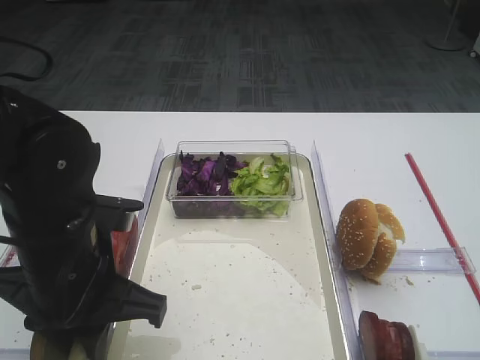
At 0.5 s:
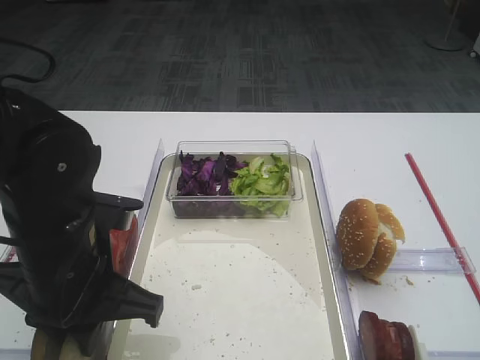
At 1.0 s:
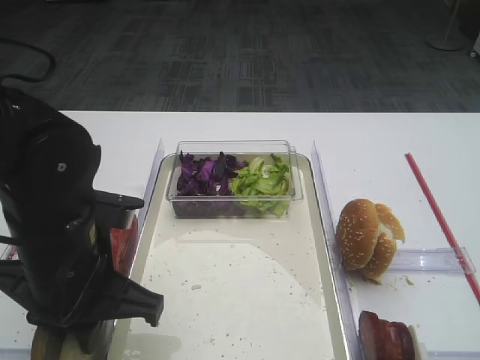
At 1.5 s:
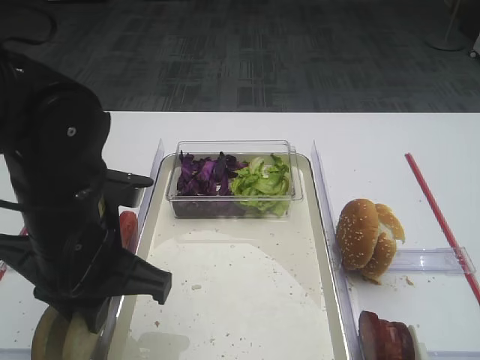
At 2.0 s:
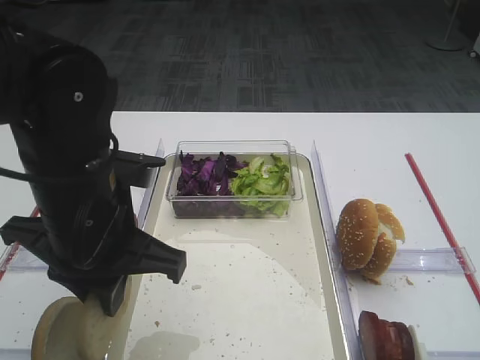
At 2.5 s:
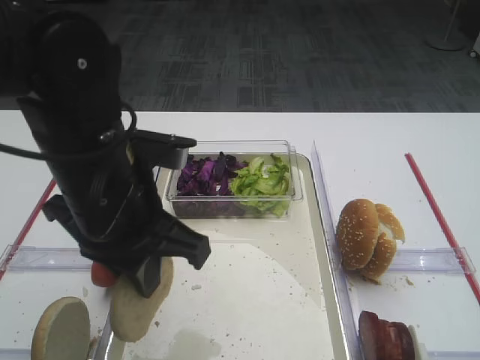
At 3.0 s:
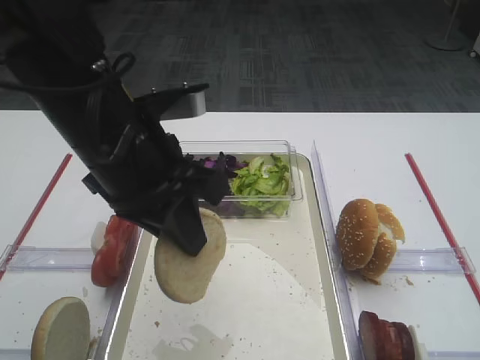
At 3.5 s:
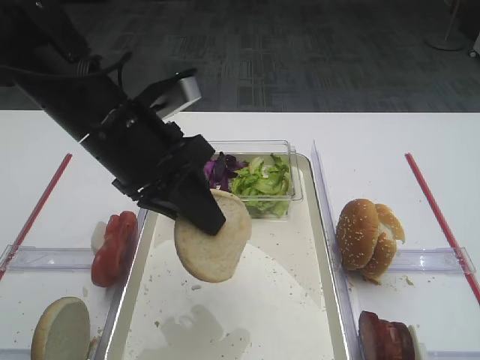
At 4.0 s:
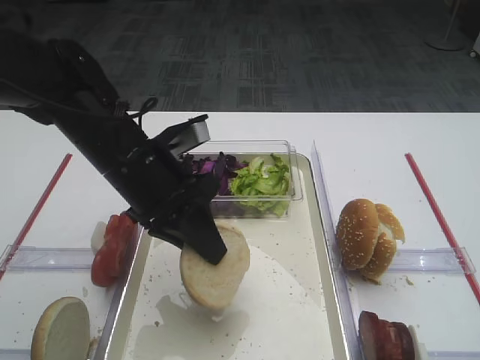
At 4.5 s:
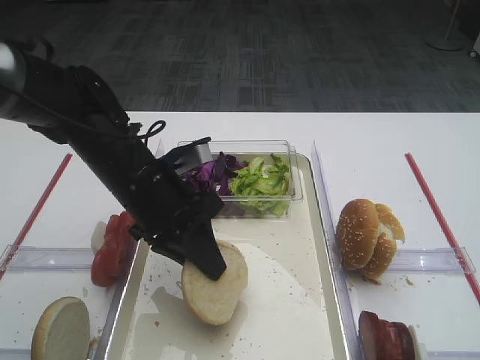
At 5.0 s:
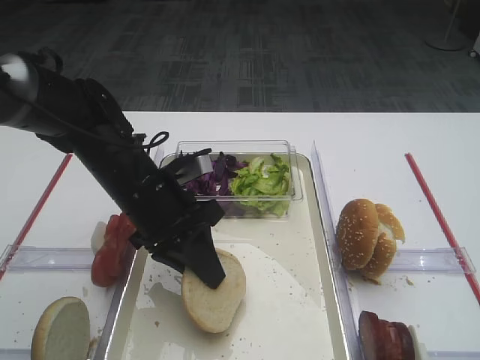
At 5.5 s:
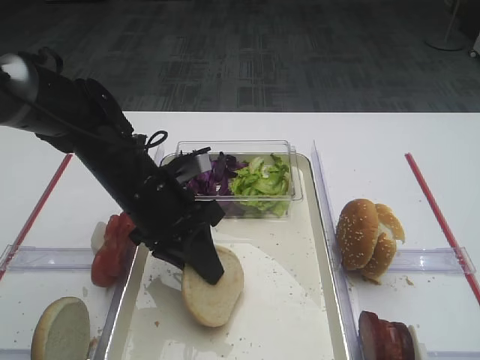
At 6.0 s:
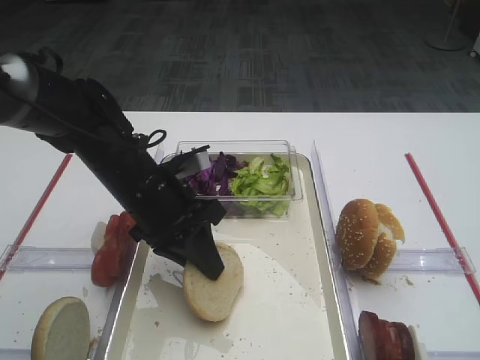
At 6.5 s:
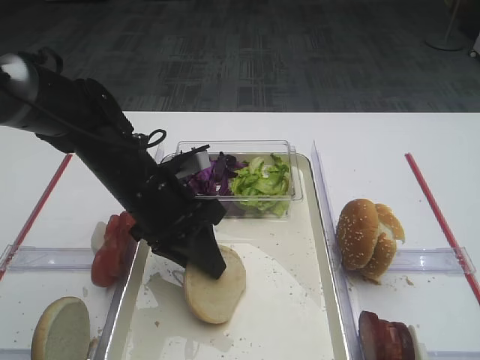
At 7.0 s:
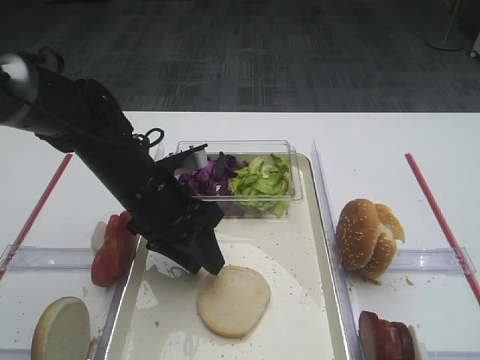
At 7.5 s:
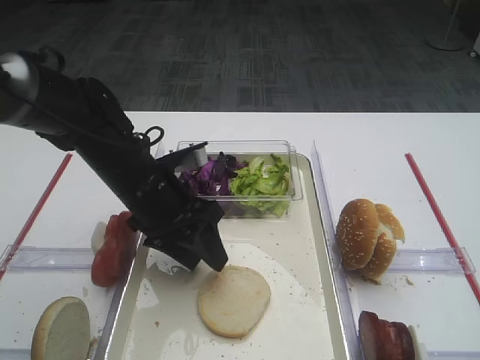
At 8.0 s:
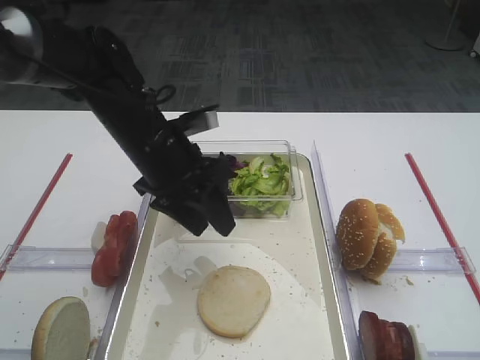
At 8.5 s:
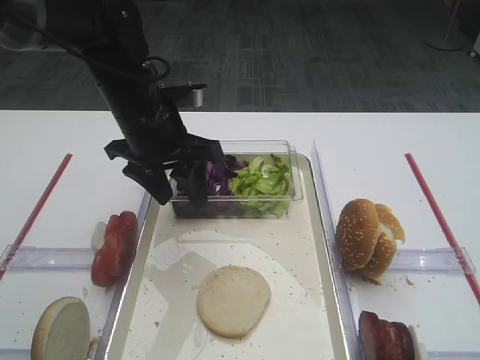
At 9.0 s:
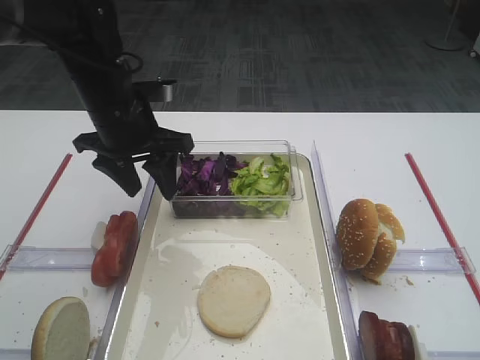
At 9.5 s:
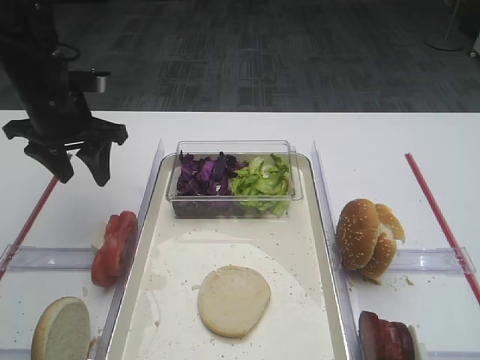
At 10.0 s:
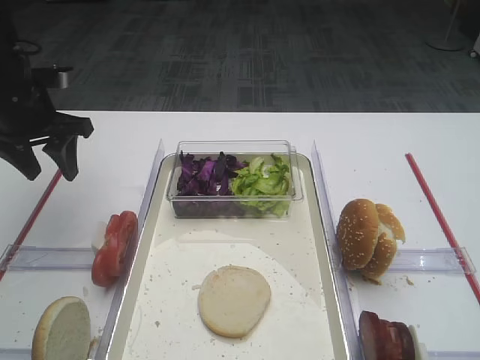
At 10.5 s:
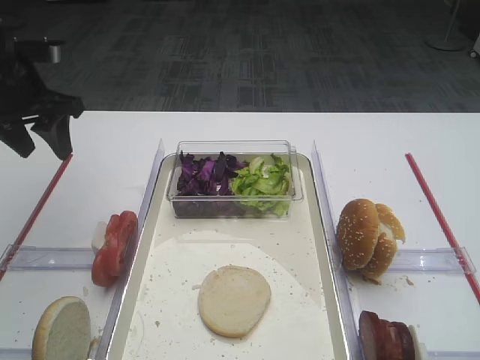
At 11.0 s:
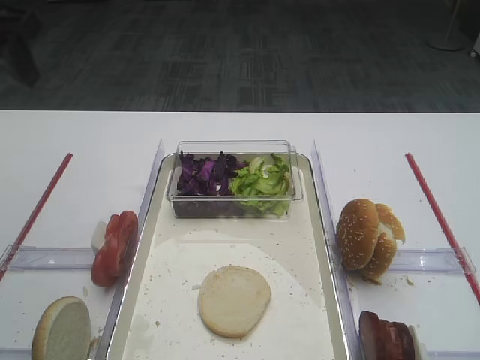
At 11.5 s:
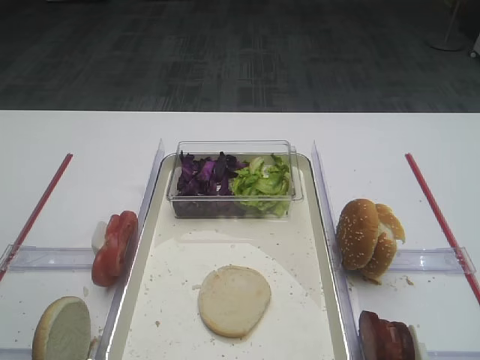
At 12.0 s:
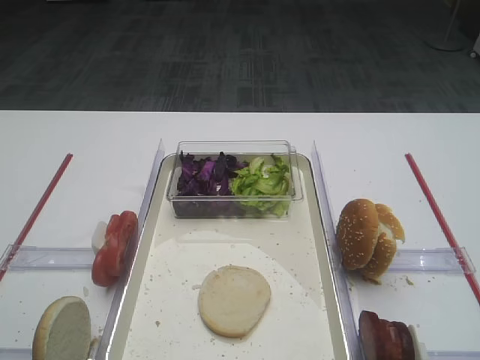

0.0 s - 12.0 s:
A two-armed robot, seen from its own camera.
Step, 0.0 s - 2.0 s: Pick up the bread slice with the left gripper.
Step, 2.5 s - 8.0 s: Place the bread slice on the tray with the left gripper.
0.0 s - 2.0 s: The grippers make only small movements.
2.0 s - 4.0 s: The left gripper heads forward, covering some 10 cm.
4.0 s - 6.0 s: The grippers move only a little.
6.0 s - 8.0 s: The left gripper ends up approximately 5 cm from where it was, and opens its fingers.
8.0 s - 10.0 s: The left gripper travels to the left by approximately 20 cm.
10.0 s - 12.0 s: The left gripper goes some 30 cm backward.

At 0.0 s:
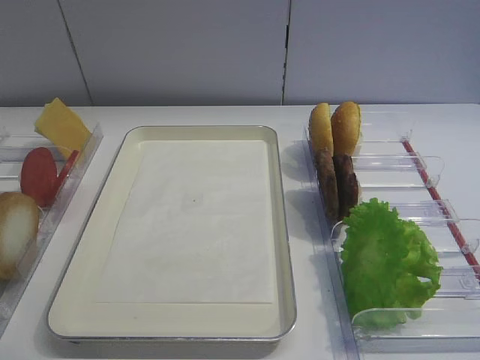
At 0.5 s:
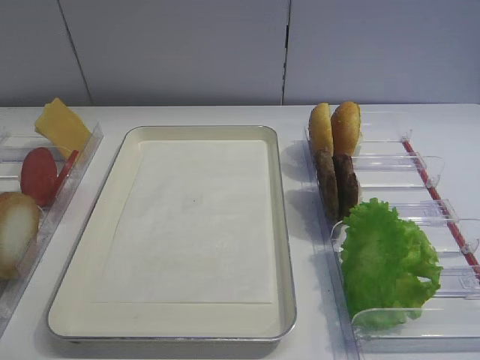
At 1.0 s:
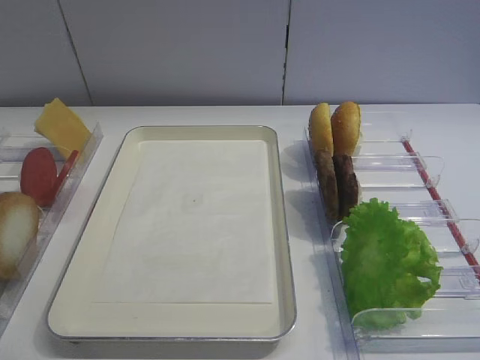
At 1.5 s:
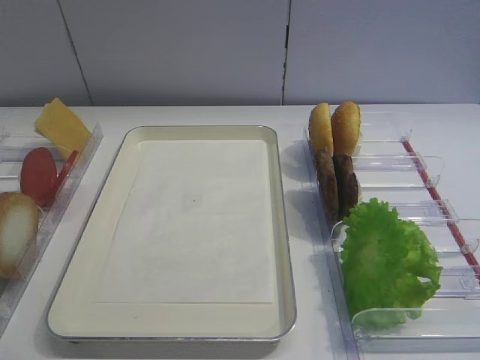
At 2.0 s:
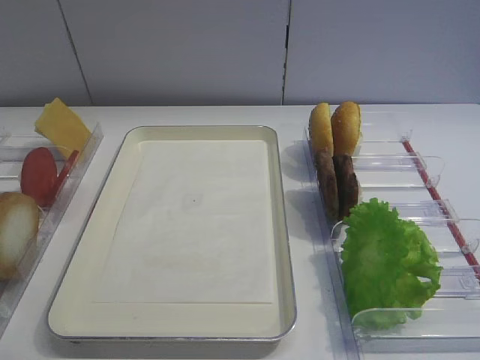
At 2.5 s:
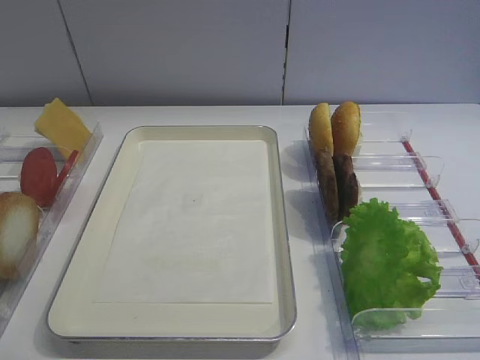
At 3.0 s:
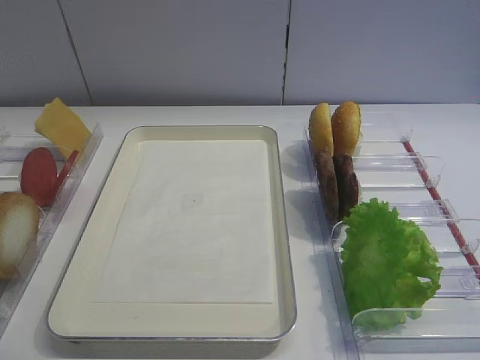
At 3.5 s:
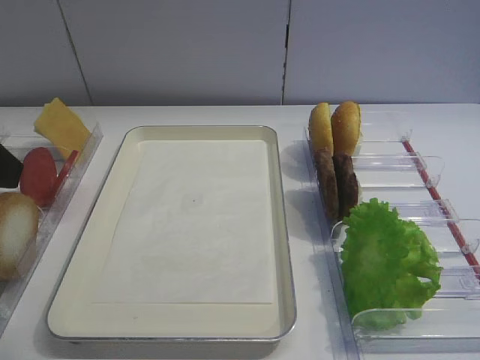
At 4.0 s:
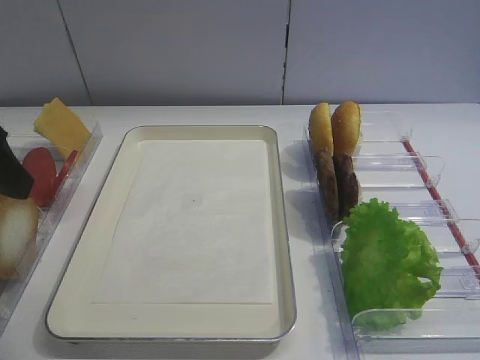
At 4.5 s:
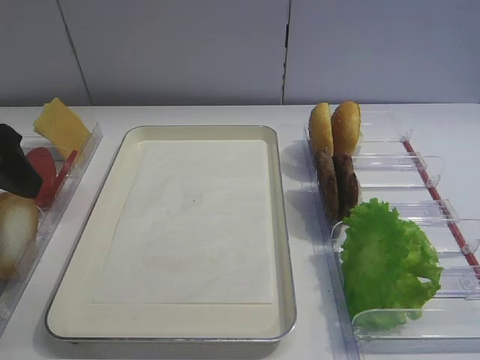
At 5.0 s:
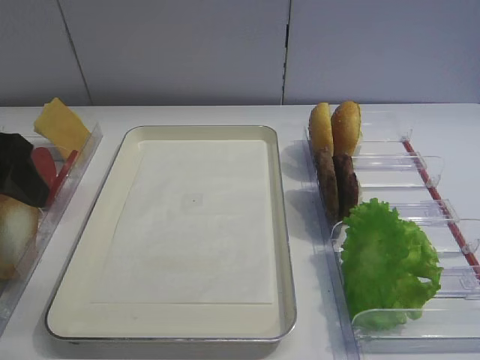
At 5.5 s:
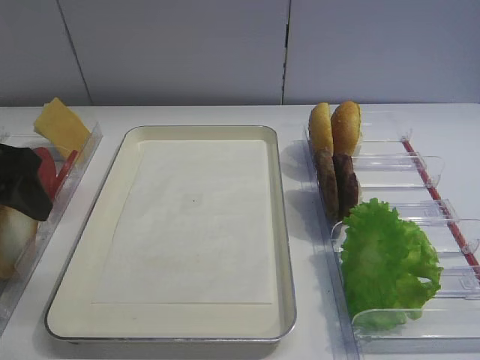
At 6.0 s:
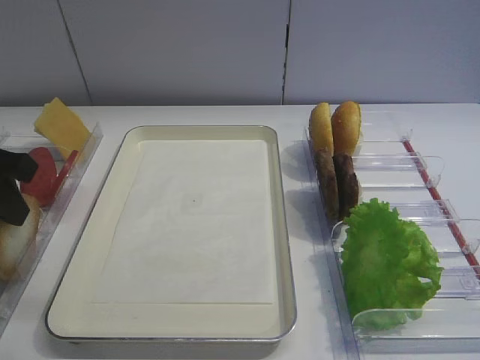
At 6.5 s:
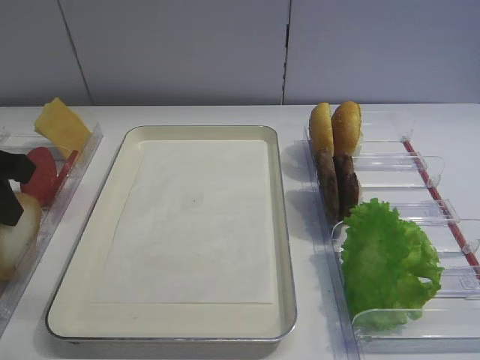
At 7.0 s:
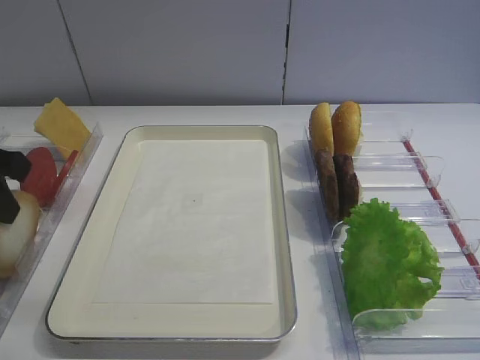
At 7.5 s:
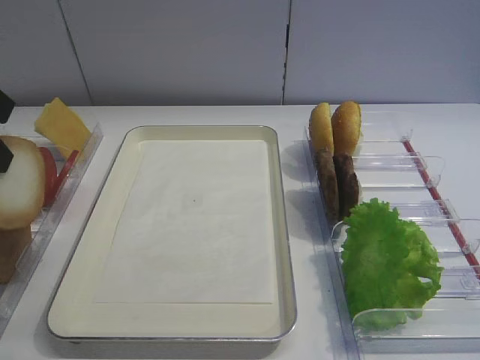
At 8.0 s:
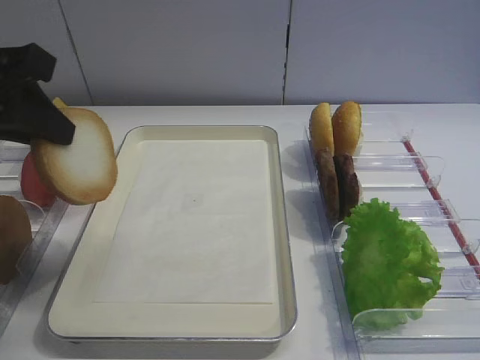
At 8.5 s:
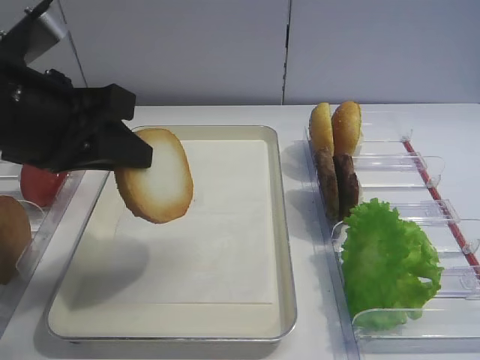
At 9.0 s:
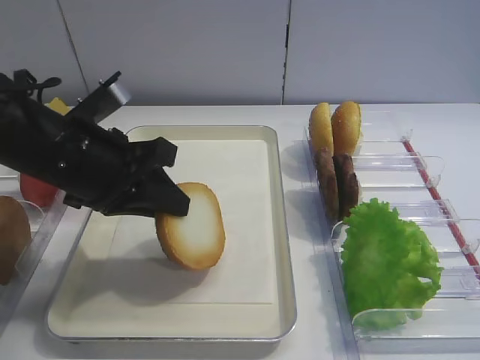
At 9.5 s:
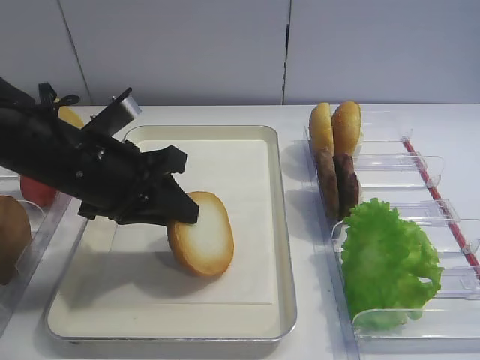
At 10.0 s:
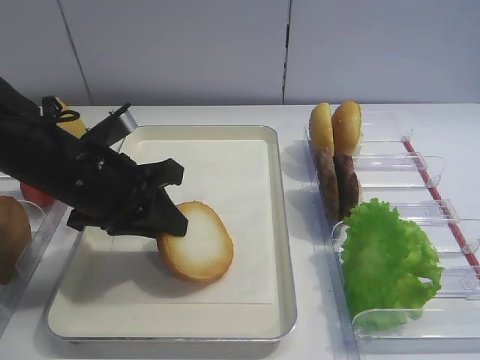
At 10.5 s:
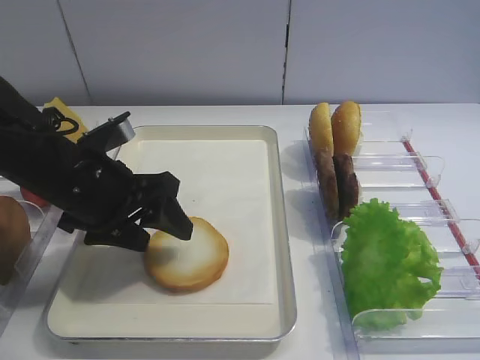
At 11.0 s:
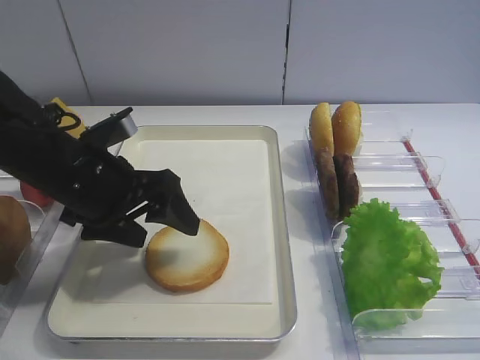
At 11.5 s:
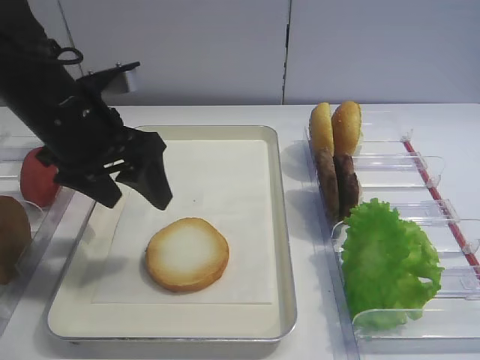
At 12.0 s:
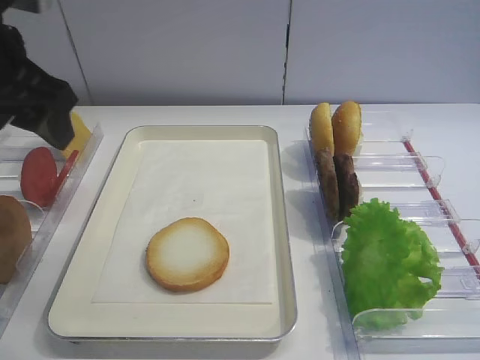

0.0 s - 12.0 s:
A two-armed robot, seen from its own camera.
Step, 0.0 s - 7.5 s: Pick up the bread slice with the left gripper.
Step, 8.0 s - 11.0 s: Place the bread slice on the tray with the left gripper.
2.0 s - 4.0 s: The left gripper is displaced forward by roughly 20 cm.
4.0 s - 6.0 s: The left gripper ends up approximately 5 cm from where it was, and closes its fingers.
6.0 s - 8.0 s: The left gripper goes some 5 cm upward.
8.0 s - 10.0 s: The left gripper travels downward and to the right by some 15 cm.
10.0 s - 12.0 s: The left gripper is displaced upward and to the left by approximately 15 cm, and opens up.

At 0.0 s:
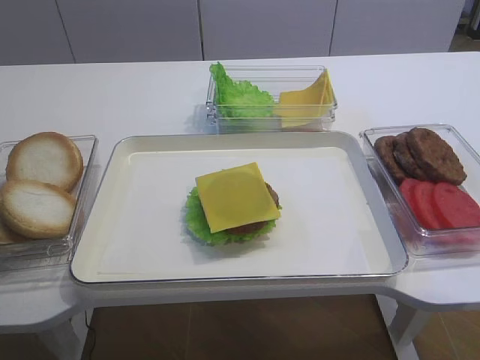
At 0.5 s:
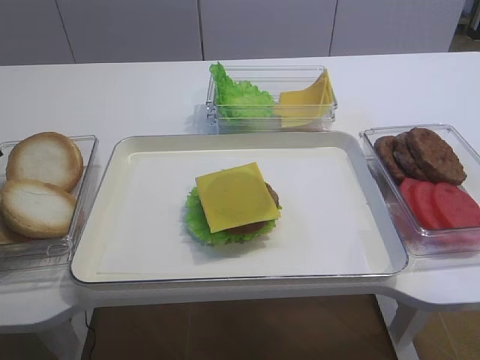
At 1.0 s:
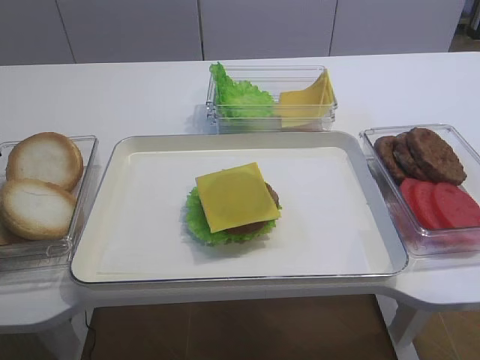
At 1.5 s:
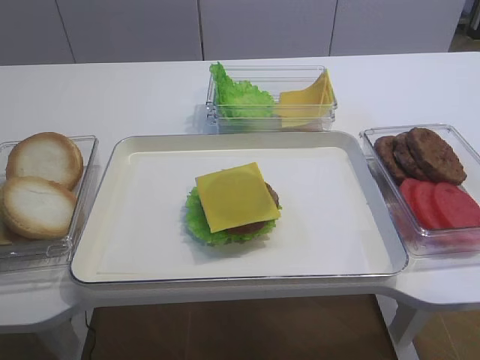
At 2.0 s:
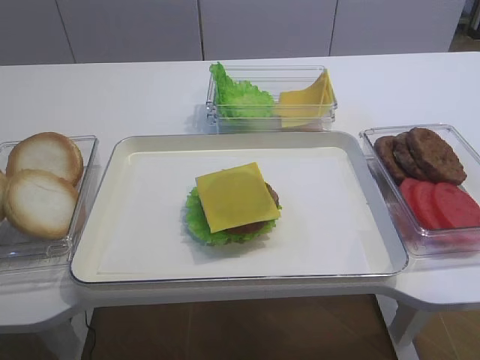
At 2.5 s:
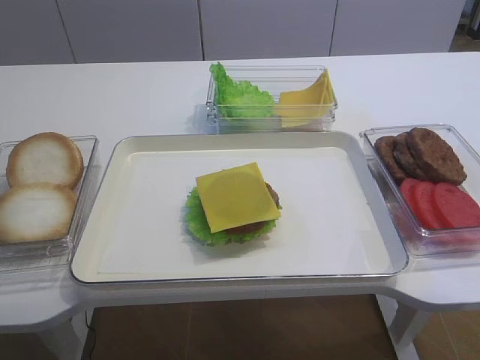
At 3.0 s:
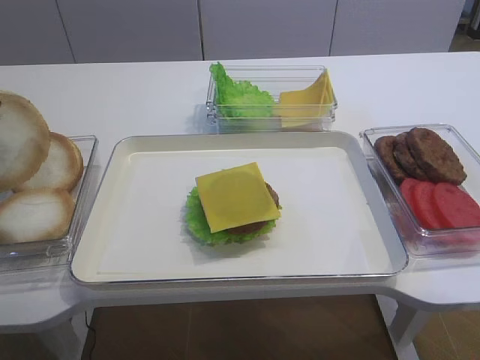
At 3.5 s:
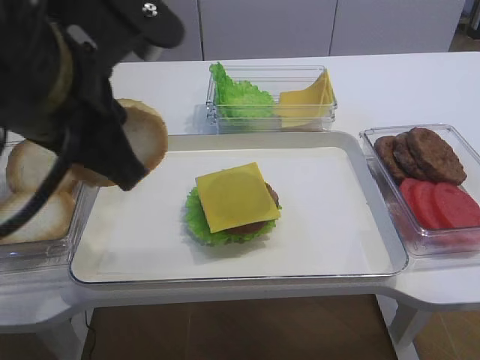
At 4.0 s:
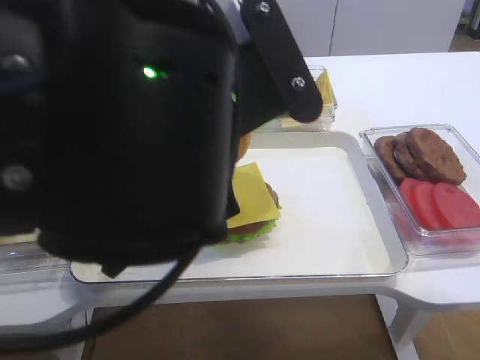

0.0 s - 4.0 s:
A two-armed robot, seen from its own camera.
Step, 0.0 s - 3.0 s: Pick up the hamburger lid with the left gripper.
0.0 s - 2.0 s: The left gripper closes up.
2.0 s - 4.0 s: The left gripper is displaced to the right by about 25 cm, while the right gripper closes up.
